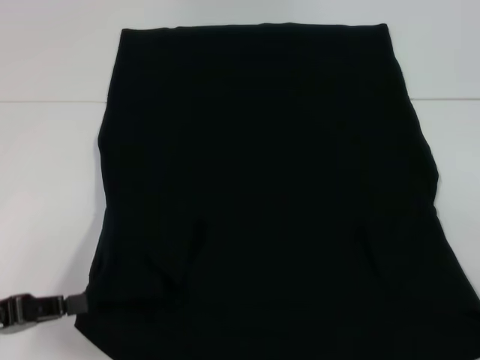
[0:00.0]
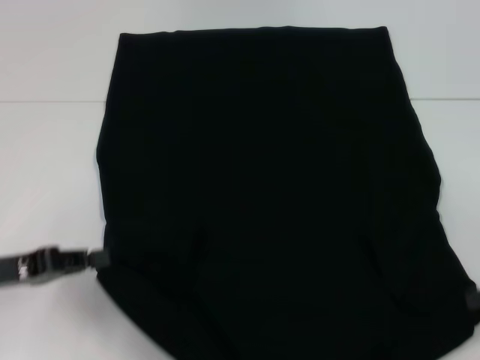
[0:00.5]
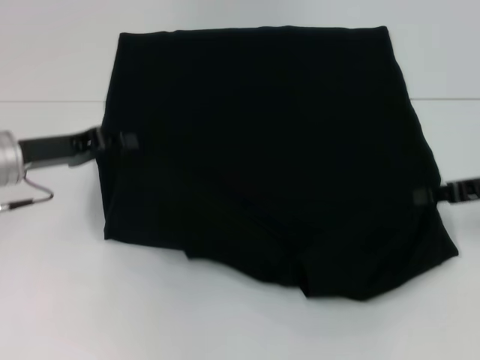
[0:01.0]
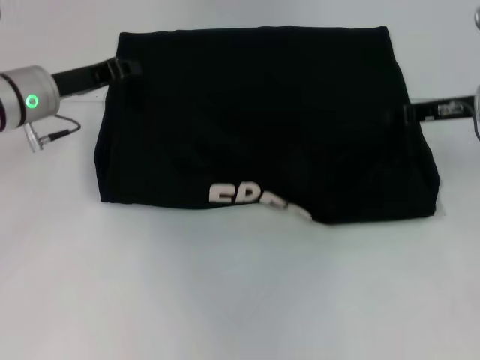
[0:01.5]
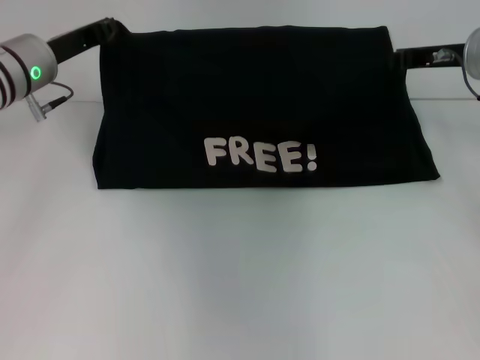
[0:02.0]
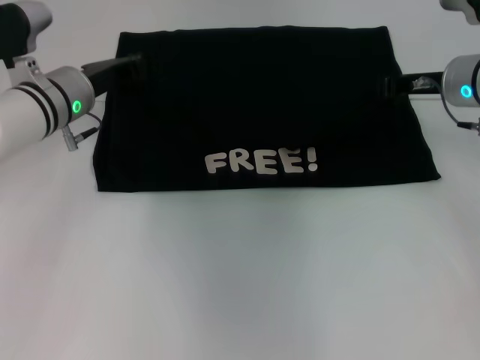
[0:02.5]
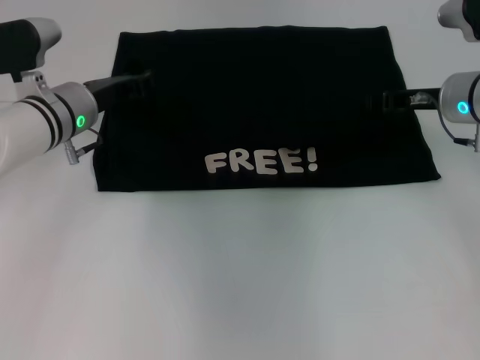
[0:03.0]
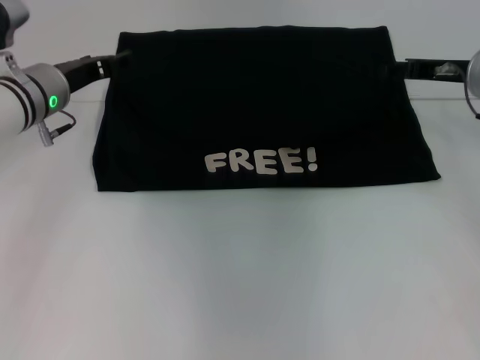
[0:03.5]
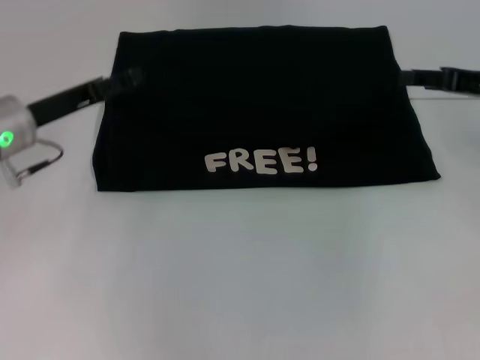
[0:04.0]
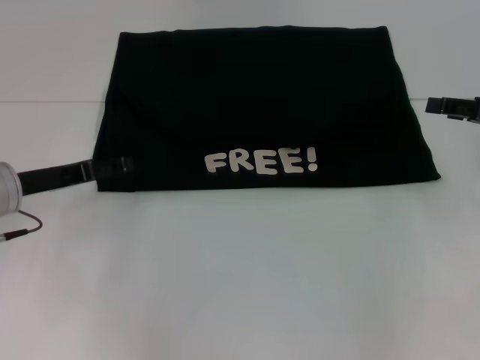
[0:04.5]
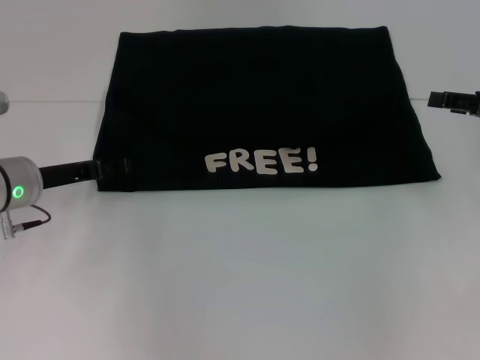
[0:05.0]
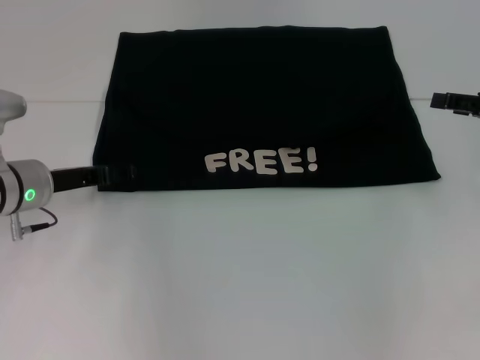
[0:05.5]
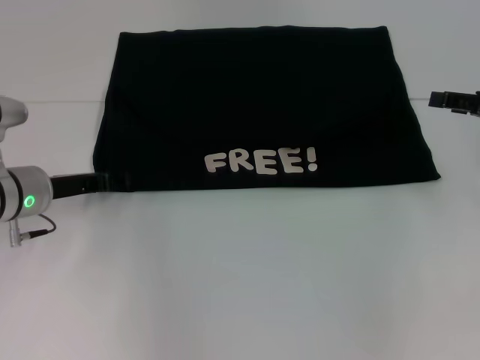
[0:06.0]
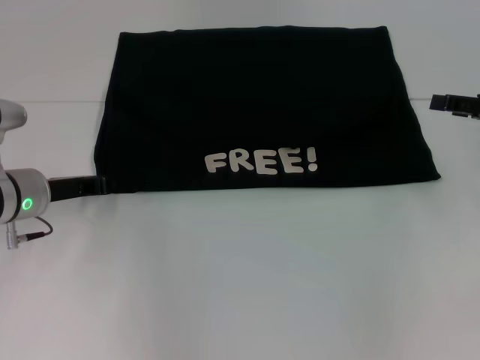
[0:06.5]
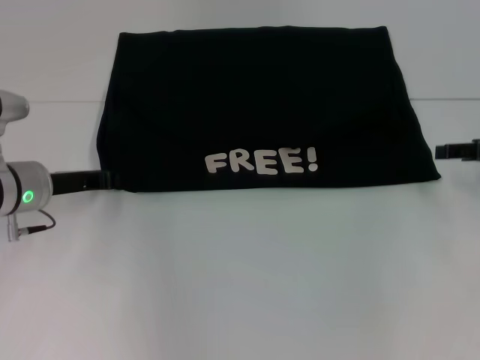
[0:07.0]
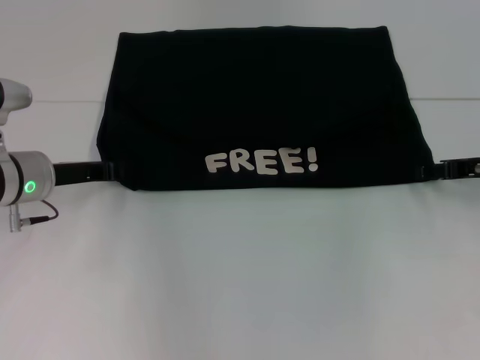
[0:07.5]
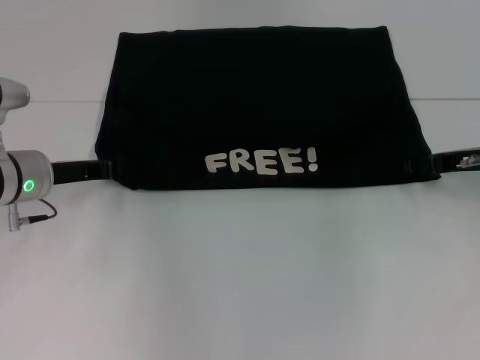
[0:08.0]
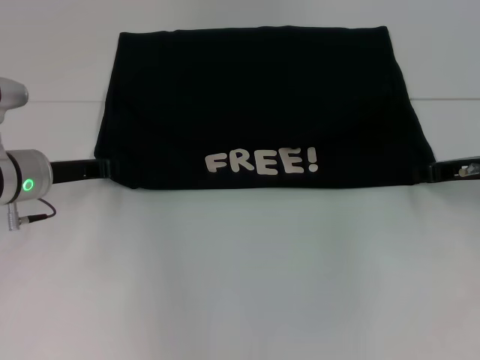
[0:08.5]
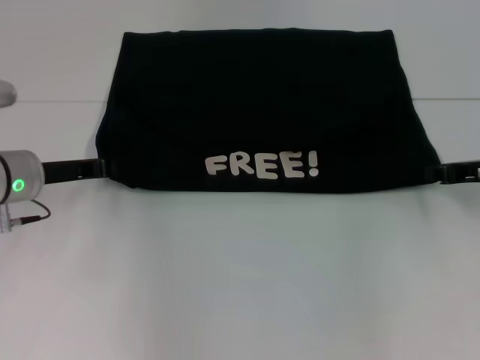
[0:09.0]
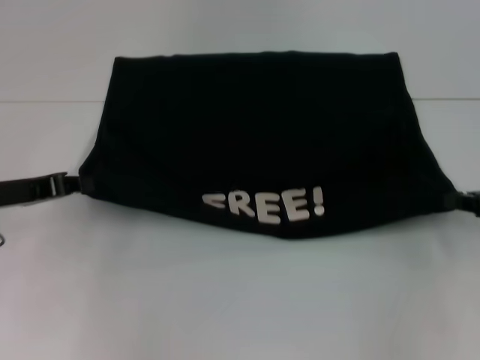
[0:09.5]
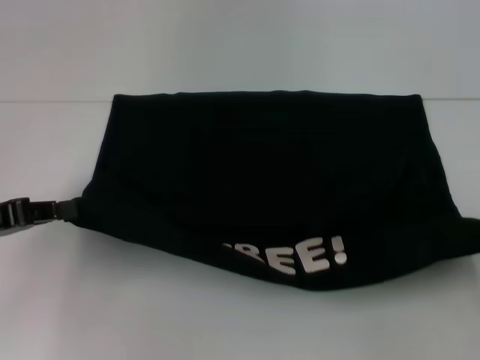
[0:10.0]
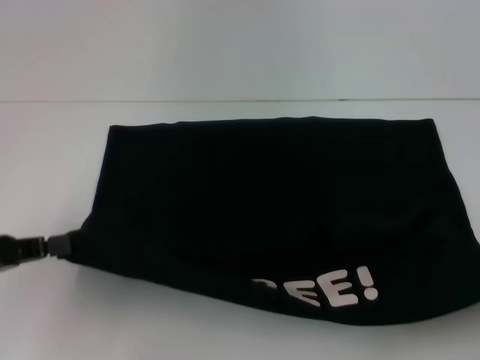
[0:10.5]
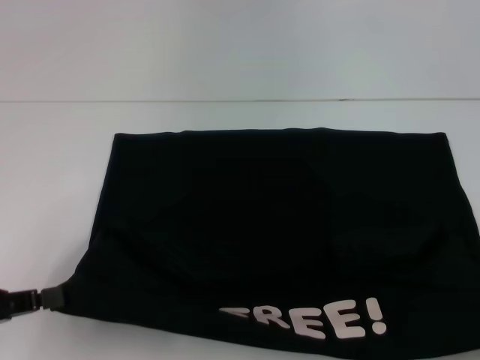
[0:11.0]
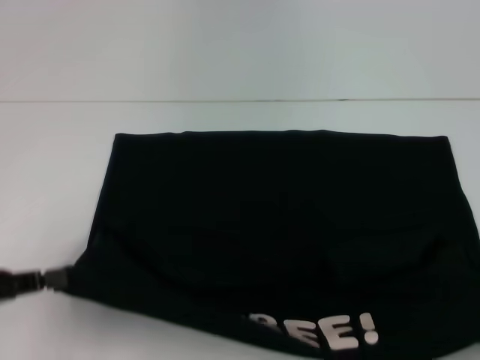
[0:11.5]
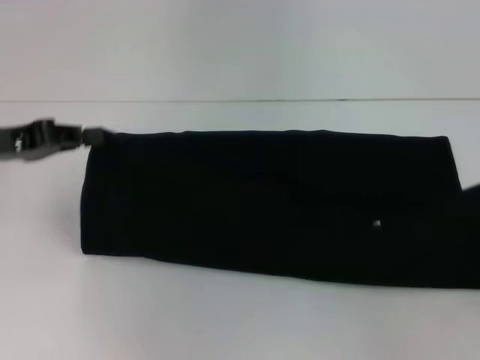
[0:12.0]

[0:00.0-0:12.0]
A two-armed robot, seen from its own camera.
Step, 0:00.0 to 0:02.5: Fold the clothes with your left hand.
Step, 0:00.0 to 0:02.5: Fold the clothes with your right hand.
Step, 0:03.0 to 0:10.0: Pull the clothes with your left hand.
Step, 0:03.0 to 0:10.0: Pull the clothes with your right hand.
0:00.0 to 0:02.0: The left gripper moves forward, some 25 cm. Meanwhile the right gripper heads forward, to the left and upward, covering some 25 cm.
0:02.0 to 0:04.0: The right gripper is displaced to the right and backward by about 10 cm, and opens its fingers; the left gripper moves backward, some 5 cm, and opens its fingers.
0:04.0 to 0:06.0: The left gripper is displaced downward by about 5 cm.
0:06.0 to 0:08.0: The left gripper closes up; the right gripper heads downward, covering some 5 cm.
0:08.0 to 0:10.0: The right gripper goes roughly 15 cm backward and to the right, and closes its fingers, while the left gripper shifts some 15 cm backward, to the left and upward.
0:10.0 to 0:12.0: The left gripper shifts approximately 5 cm forward. Meanwhile the right gripper travels backward and back again, some 10 cm each way.

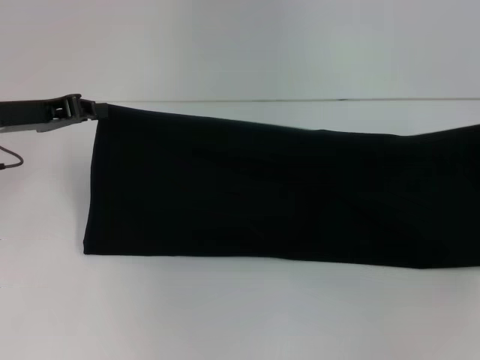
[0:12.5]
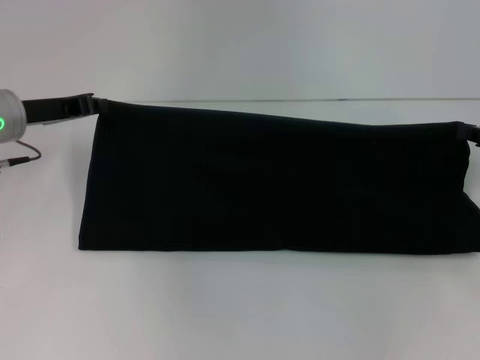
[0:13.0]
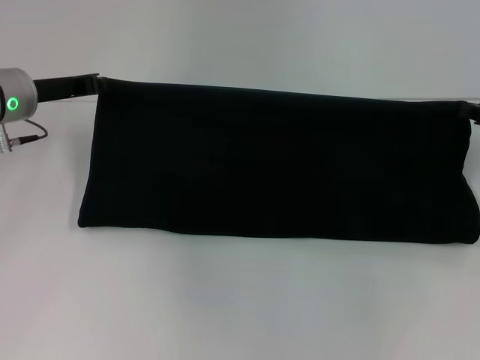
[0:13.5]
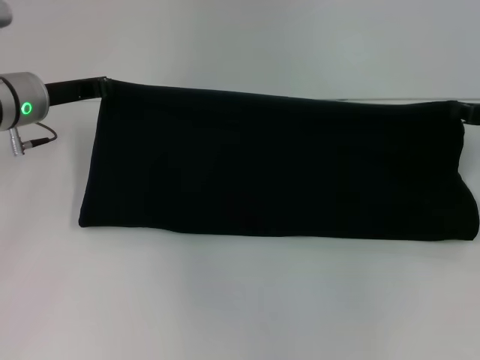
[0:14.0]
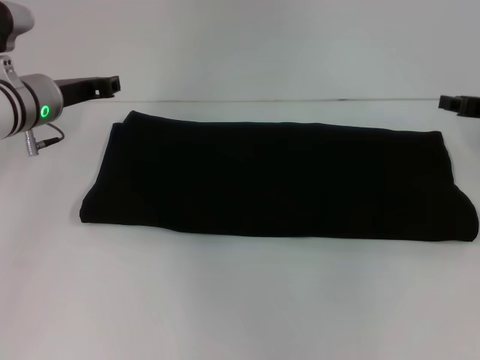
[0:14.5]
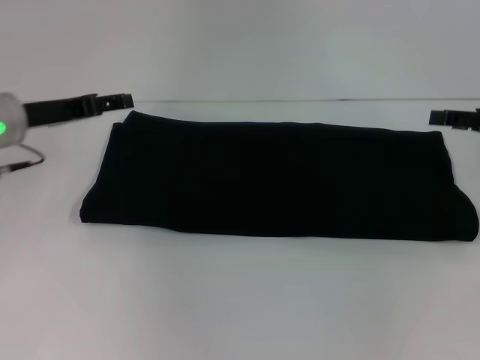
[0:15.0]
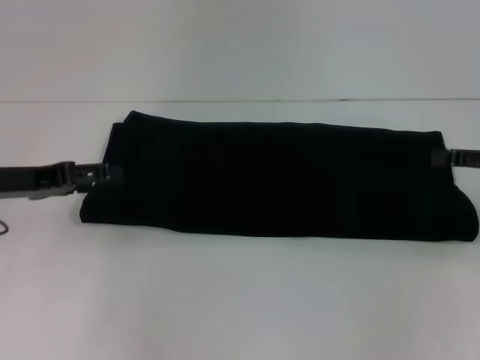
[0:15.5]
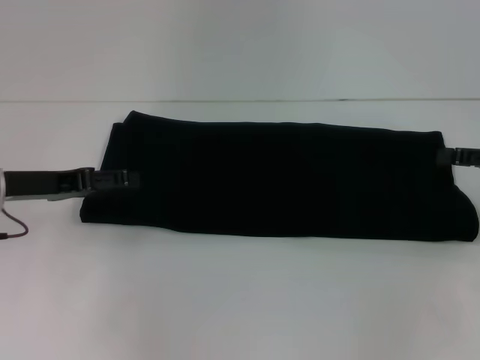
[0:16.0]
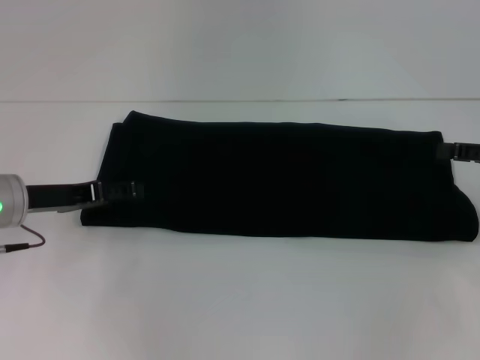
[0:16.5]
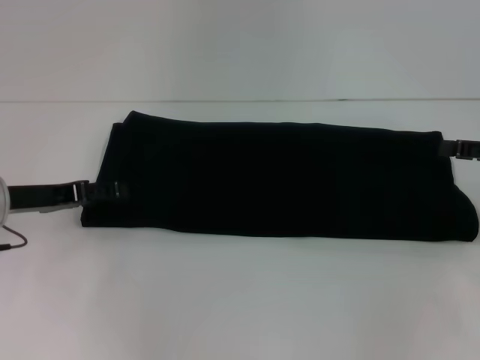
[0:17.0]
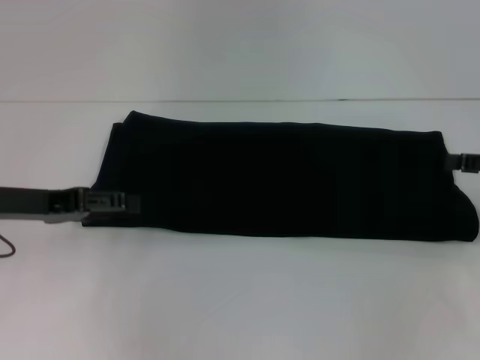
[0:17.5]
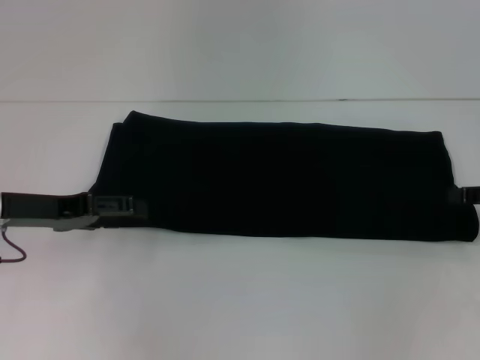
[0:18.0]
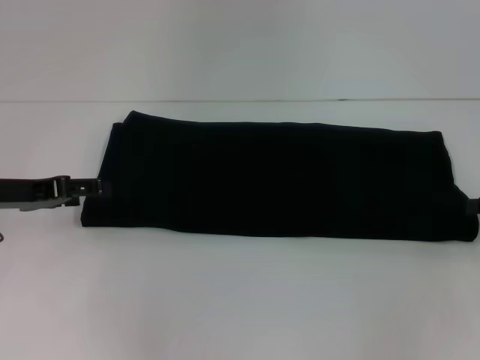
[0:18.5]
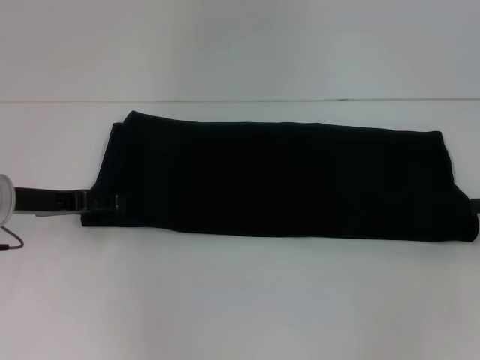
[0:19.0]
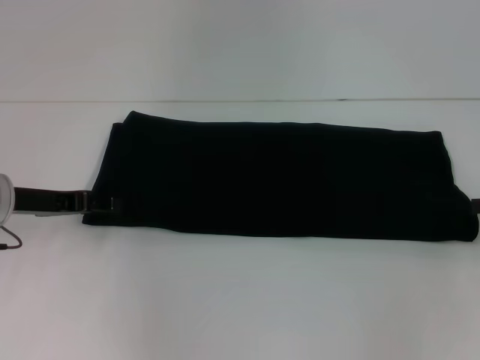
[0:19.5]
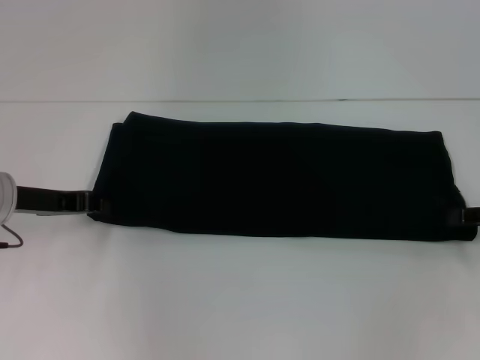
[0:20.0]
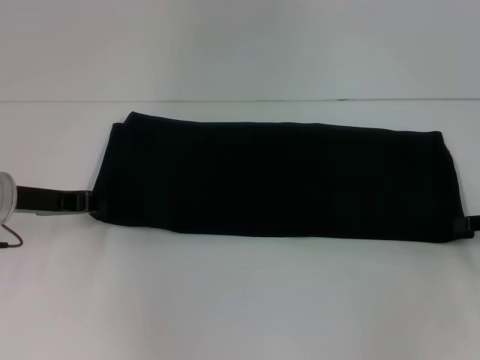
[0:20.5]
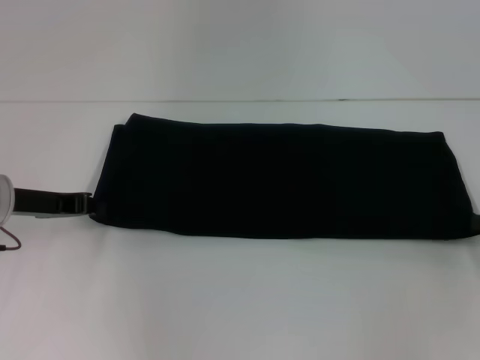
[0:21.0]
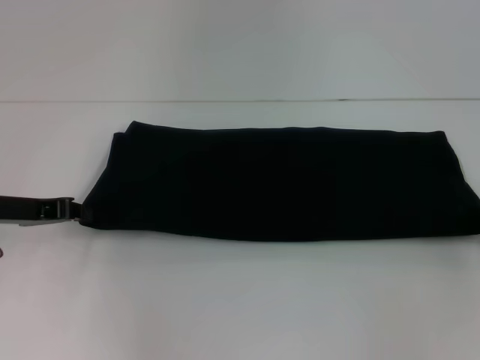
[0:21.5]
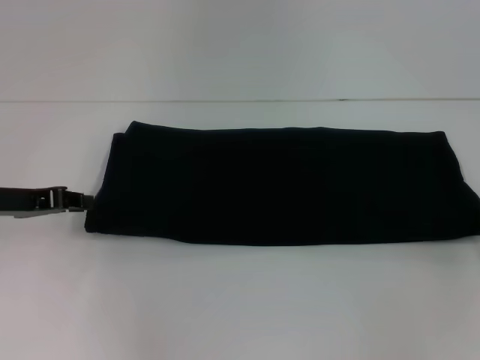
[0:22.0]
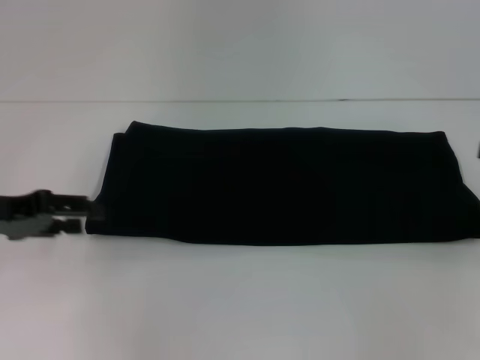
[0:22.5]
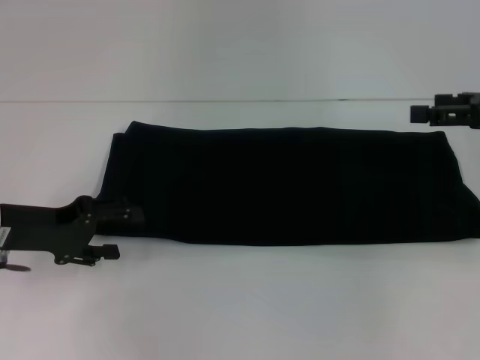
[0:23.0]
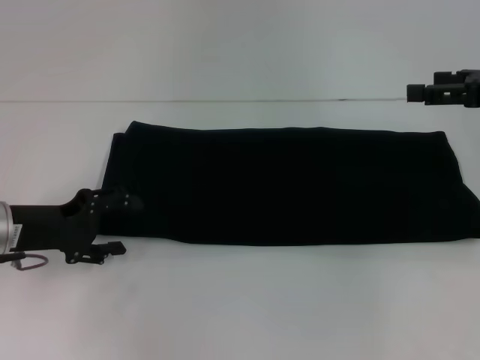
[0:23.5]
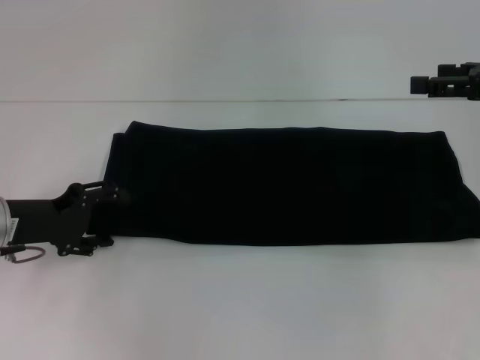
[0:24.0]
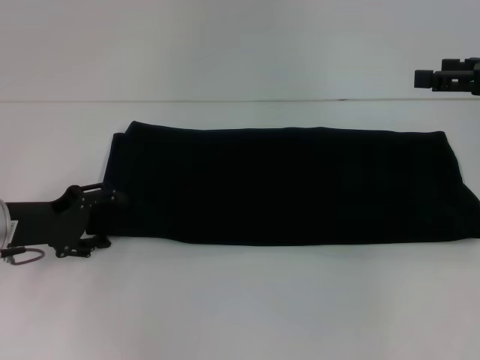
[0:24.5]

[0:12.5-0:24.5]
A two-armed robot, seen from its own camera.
Step, 0:12.5 to 0:15.0: Fold the clothes with your right hand.
0:12.5 to 0:14.5: The left gripper is displaced to the right and forward by about 10 cm. Meanwhile the right gripper shifts approximately 10 cm forward and to the left.
0:14.5 to 0:16.5: The grippers both shift backward by some 10 cm. The left gripper opens. The right gripper opens its fingers.
0:16.5 to 0:18.5: The grippers stay close to where they were, moving slightly.
0:18.5 to 0:20.5: The left gripper closes its fingers.
0:20.5 to 0:22.5: The left gripper moves roughly 5 cm, and opens its fingers. The right gripper shifts approximately 5 cm upward, and closes, then reopens.
0:22.5 to 0:24.5: The right gripper moves forward and to the left, about 10 cm, and opens up; the left gripper heads downward, covering some 5 cm, and opens up.

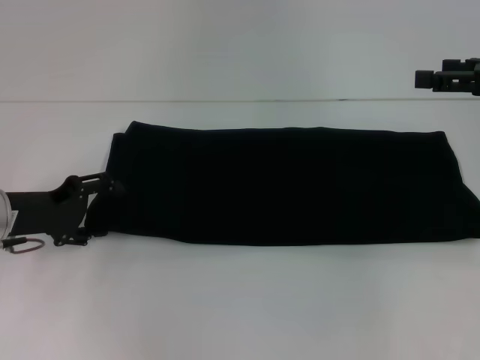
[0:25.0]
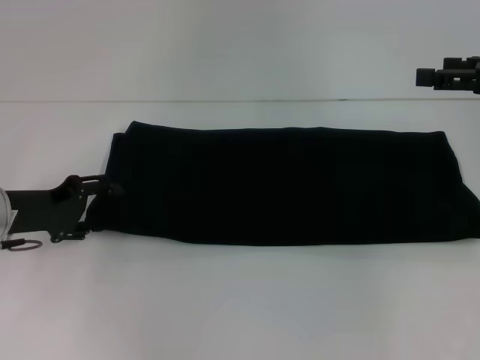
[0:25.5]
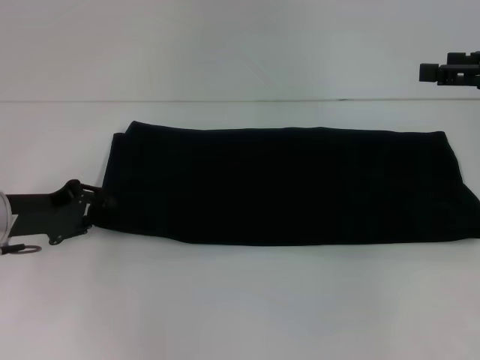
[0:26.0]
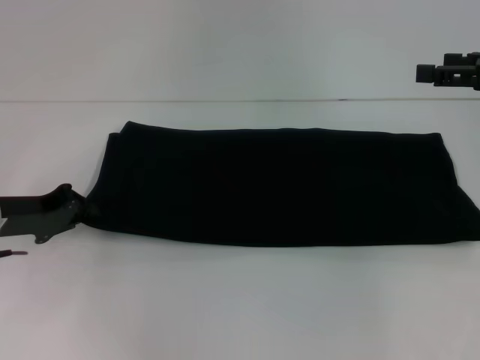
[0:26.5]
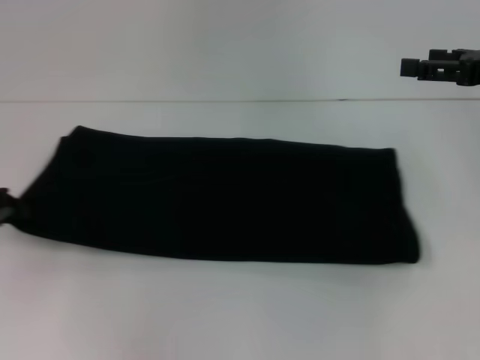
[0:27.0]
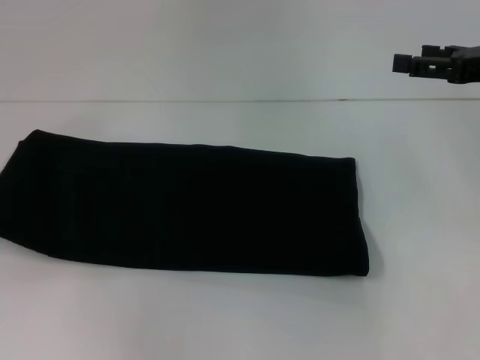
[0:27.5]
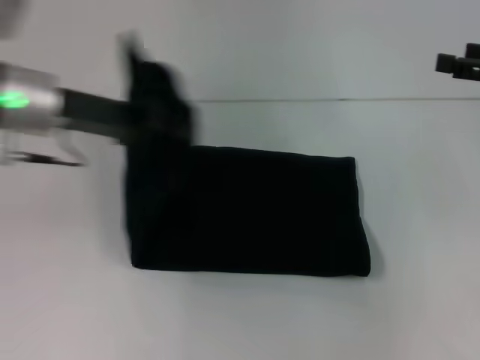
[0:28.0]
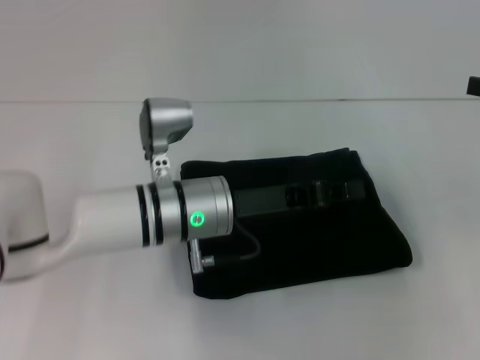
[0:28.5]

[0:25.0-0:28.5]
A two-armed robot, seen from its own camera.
0:25.0 to 0:27.0: The left gripper goes roughly 5 cm to the left, and closes.
0:27.0 to 0:28.5: The left gripper moves to the right, approximately 30 cm; the right gripper shifts about 5 cm to the right.
